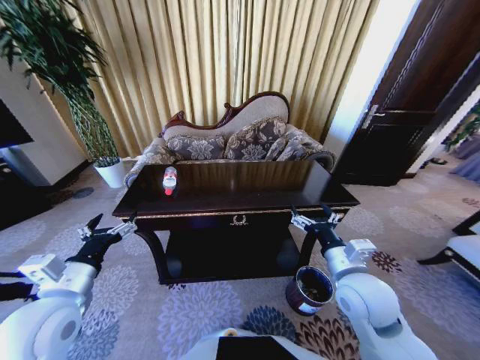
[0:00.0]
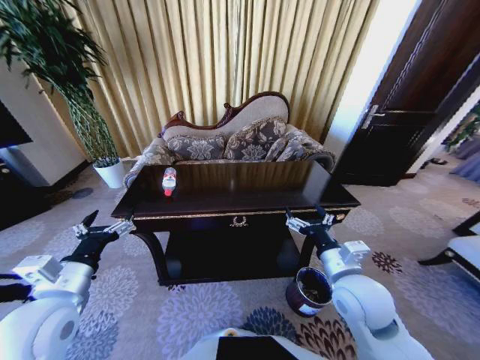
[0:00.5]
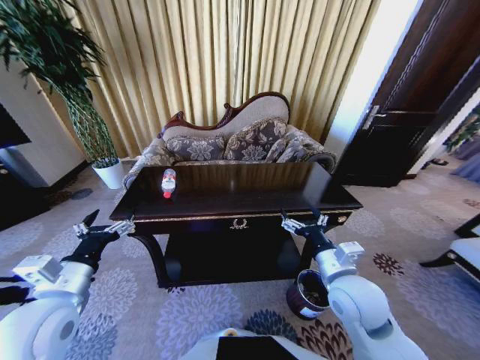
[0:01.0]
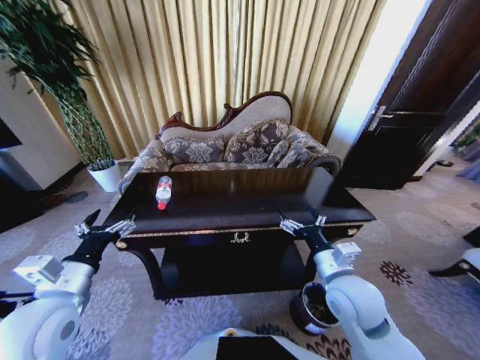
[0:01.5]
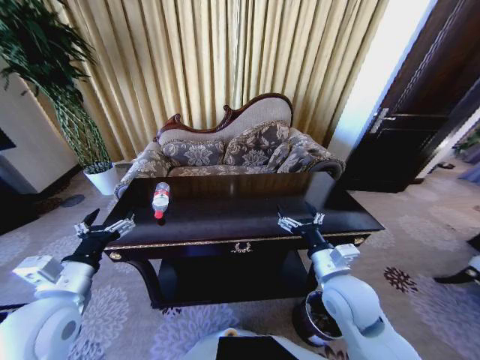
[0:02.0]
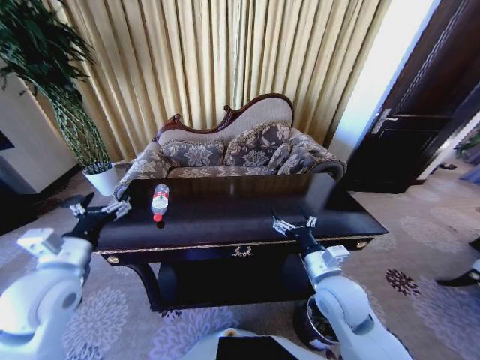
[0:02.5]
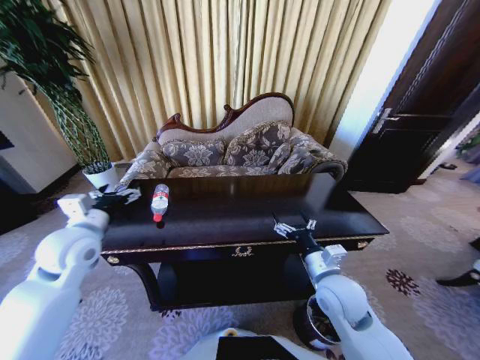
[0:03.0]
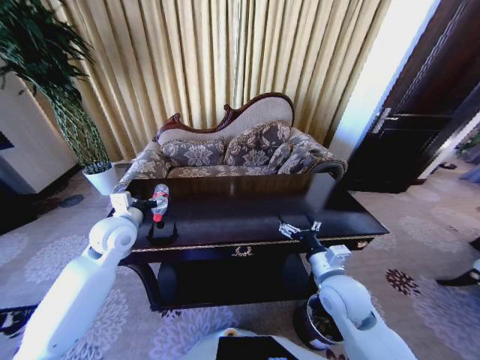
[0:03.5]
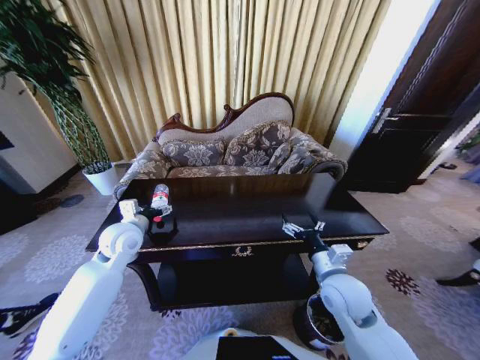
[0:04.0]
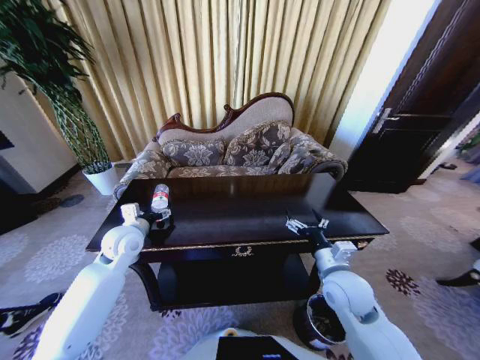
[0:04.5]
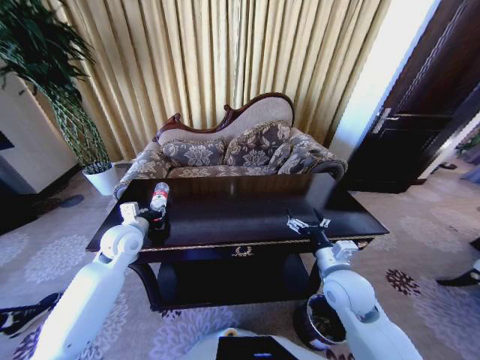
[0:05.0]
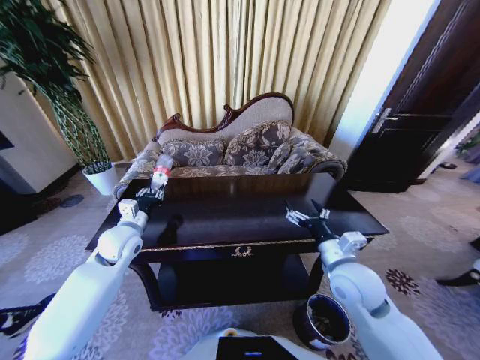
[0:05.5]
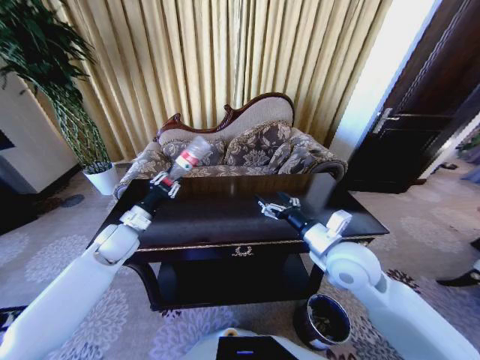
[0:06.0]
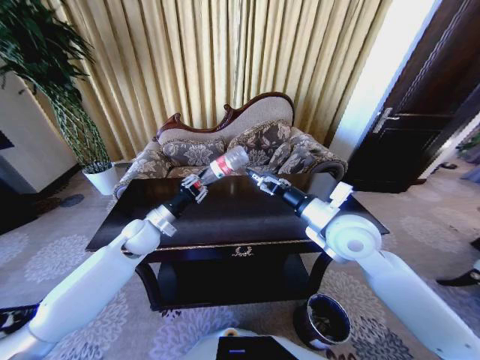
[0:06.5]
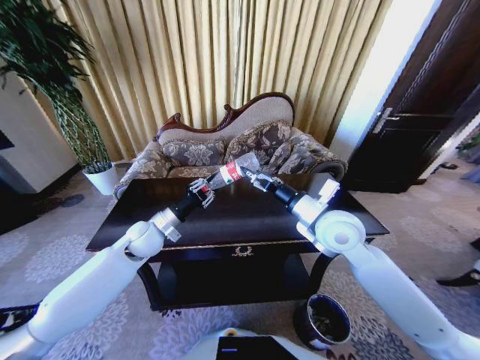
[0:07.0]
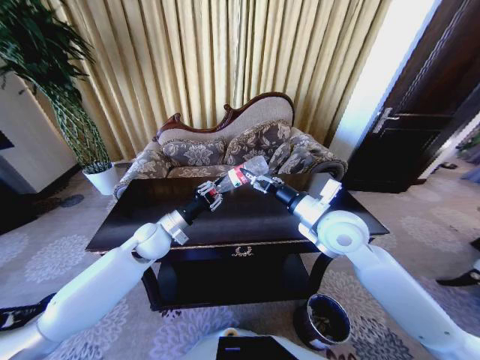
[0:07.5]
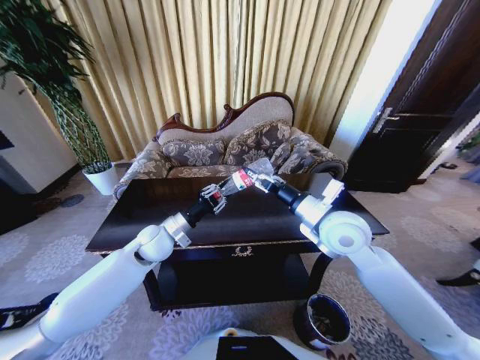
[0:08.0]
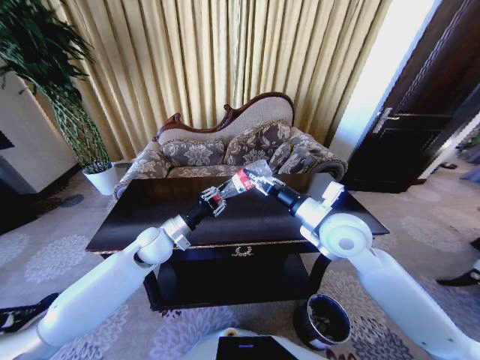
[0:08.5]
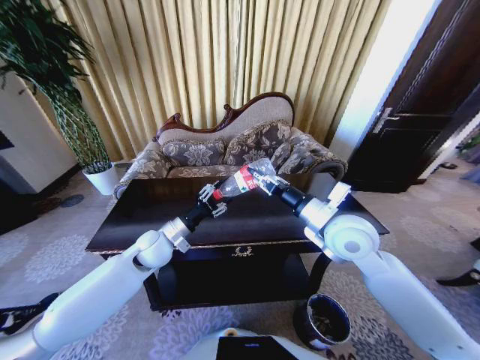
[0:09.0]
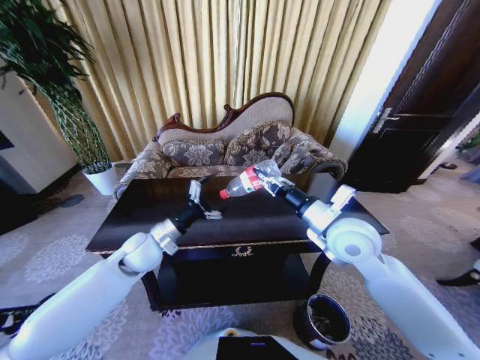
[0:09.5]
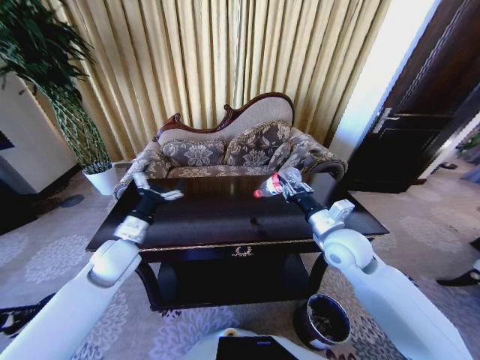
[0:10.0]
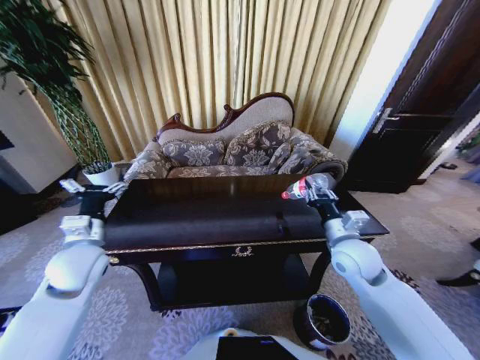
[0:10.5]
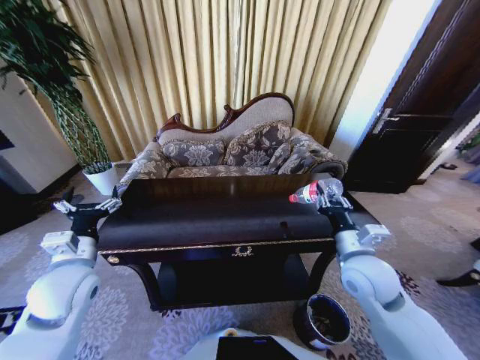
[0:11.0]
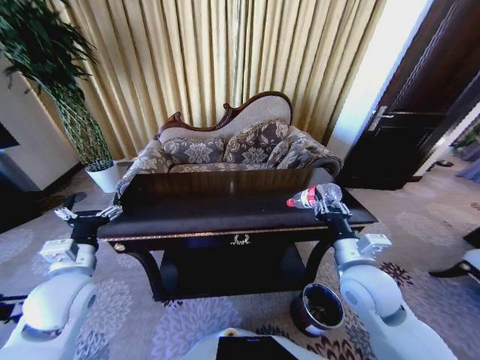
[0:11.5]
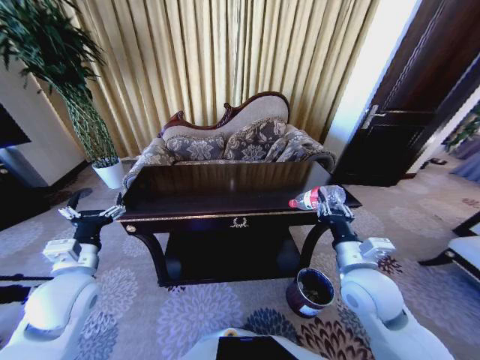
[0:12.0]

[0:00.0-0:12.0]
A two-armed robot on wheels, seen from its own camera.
Task of the whole recording: Move to the front of the table and place the trash on the table into the trash bin.
0:02.0 to 0:04.0: The left gripper is displaced forward by roughly 20 cm.
0:04.0 to 0:06.0: The left gripper closes up; the right gripper shifts roughly 10 cm upward.
0:06.0 to 0:08.0: The left gripper travels to the right by approximately 10 cm, while the right gripper is displaced forward by about 5 cm.
0:08.0 to 0:10.0: The right gripper travels downward by about 5 cm, and closes up; the left gripper shifts approximately 10 cm to the left and backward, and opens.
0:10.0 to 0:12.0: Both grippers travel together backward, some 10 cm.

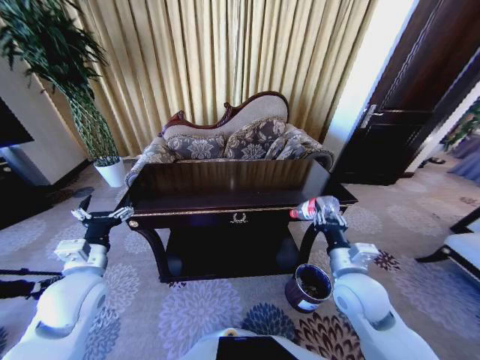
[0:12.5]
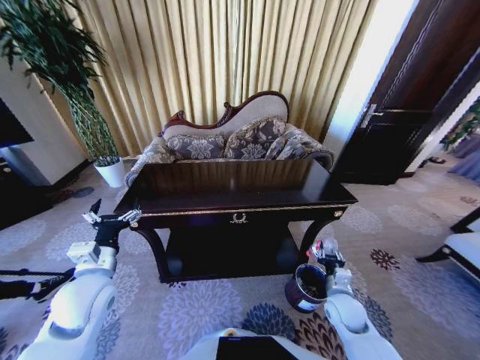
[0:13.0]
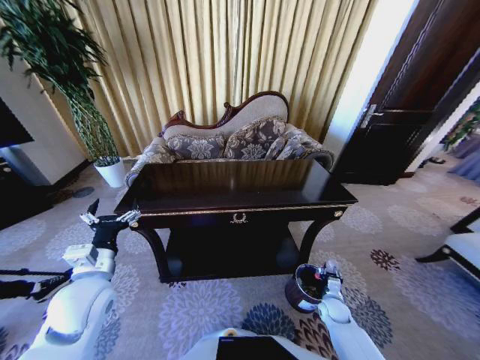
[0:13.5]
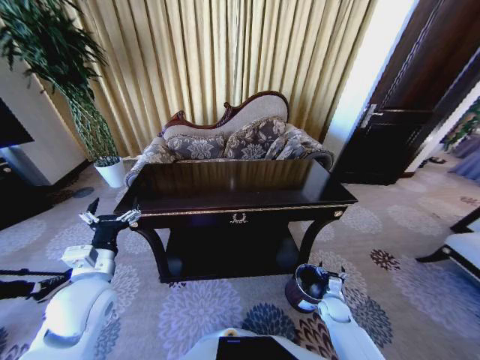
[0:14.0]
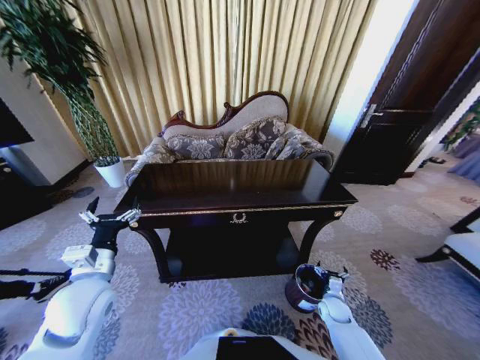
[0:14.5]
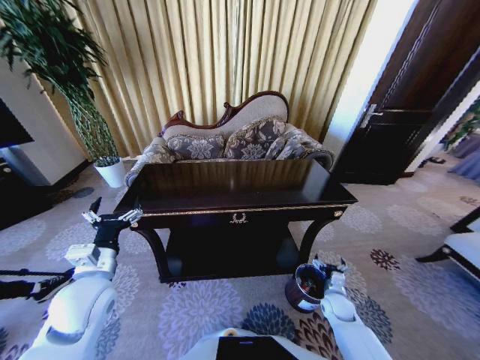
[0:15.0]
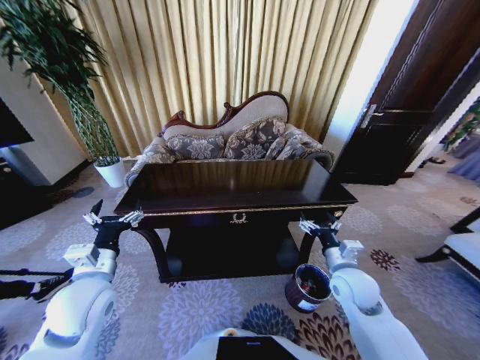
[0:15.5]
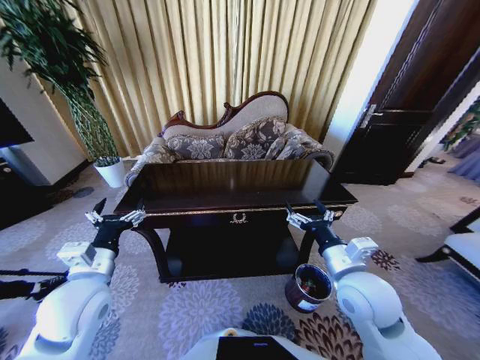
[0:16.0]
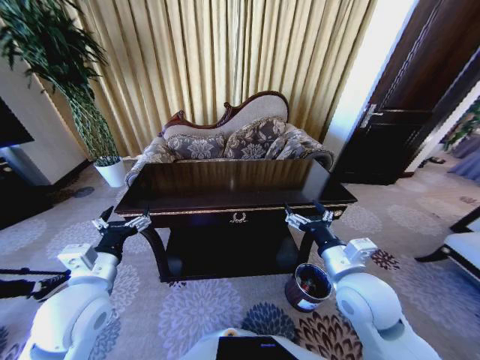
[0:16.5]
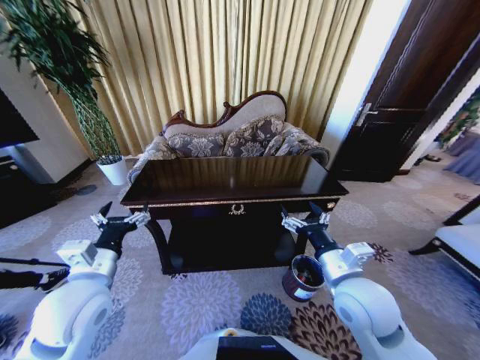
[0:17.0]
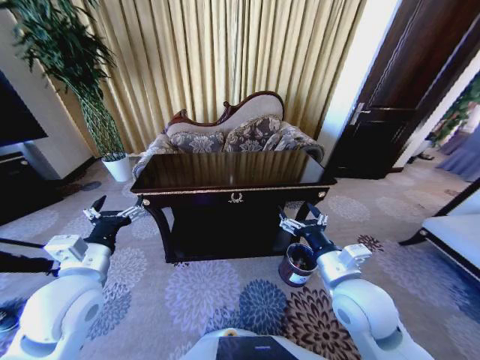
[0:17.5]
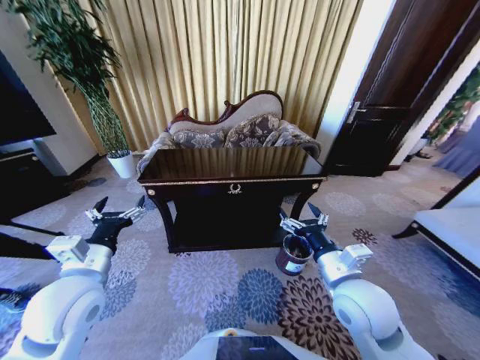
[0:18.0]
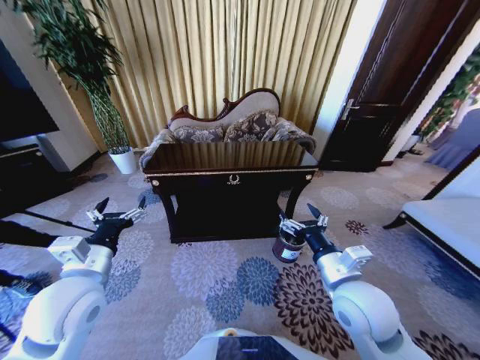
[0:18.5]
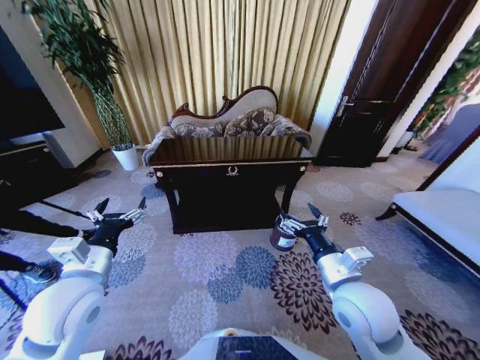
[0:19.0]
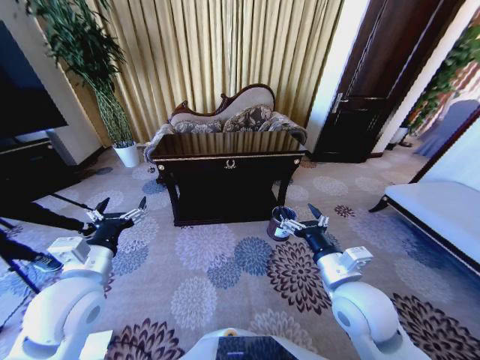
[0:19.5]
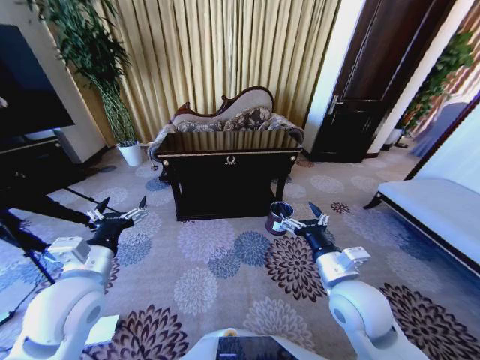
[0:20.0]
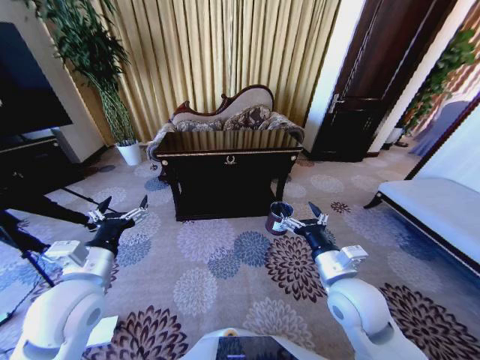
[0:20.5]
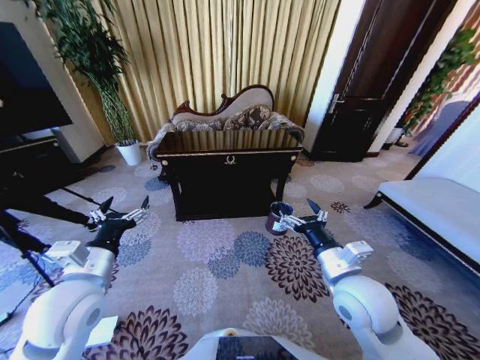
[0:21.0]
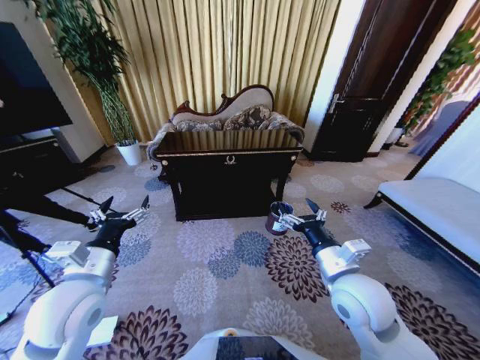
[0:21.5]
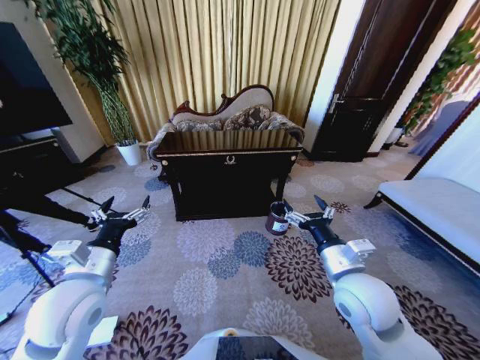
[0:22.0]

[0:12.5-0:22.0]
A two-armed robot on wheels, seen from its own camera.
Task of the whole recording: Move to the front of the table and place the trash on the table into the trash bin.
0:12.5 to 0:14.5: The right gripper heads downward, covering about 30 cm, and opens up.
0:14.5 to 0:16.5: The right gripper is displaced upward by some 35 cm.
0:20.0 to 0:22.0: The grippers make only small movements.

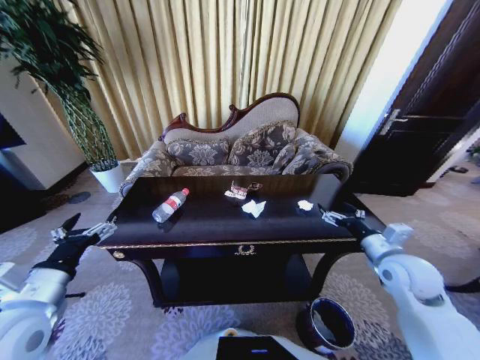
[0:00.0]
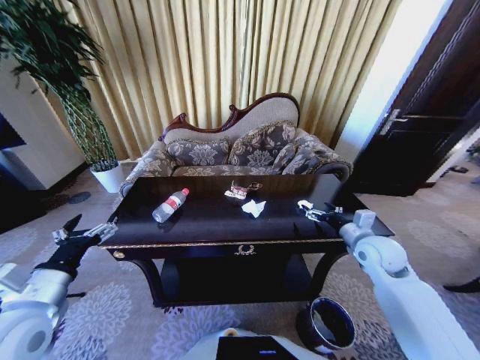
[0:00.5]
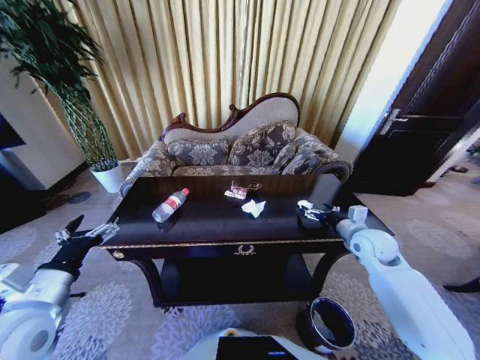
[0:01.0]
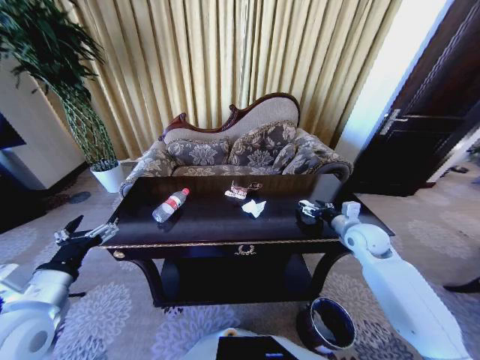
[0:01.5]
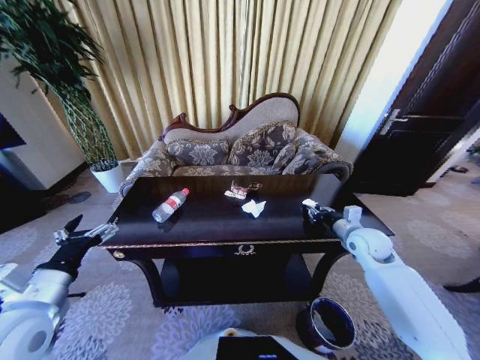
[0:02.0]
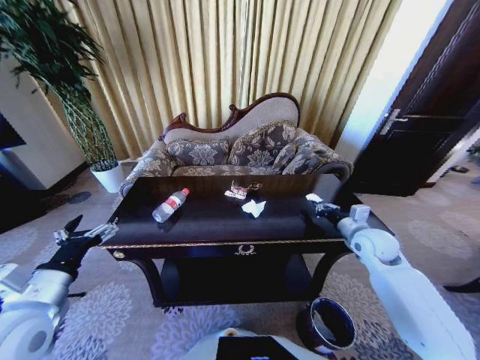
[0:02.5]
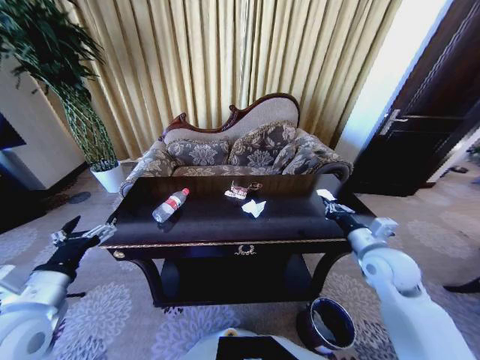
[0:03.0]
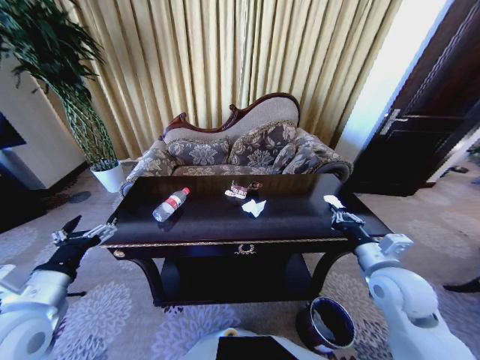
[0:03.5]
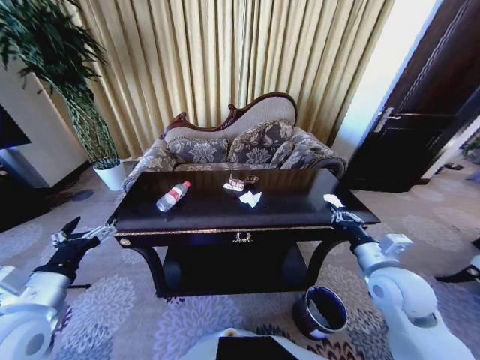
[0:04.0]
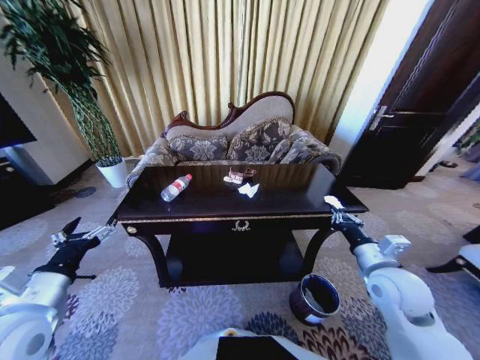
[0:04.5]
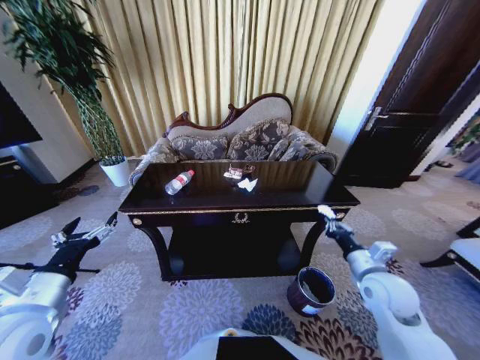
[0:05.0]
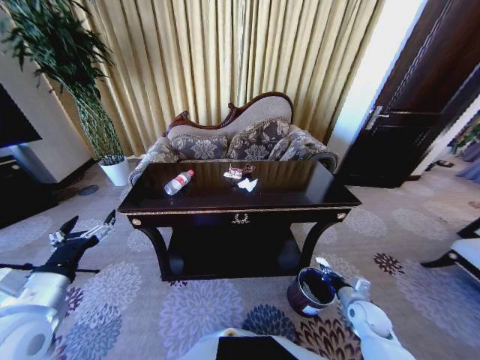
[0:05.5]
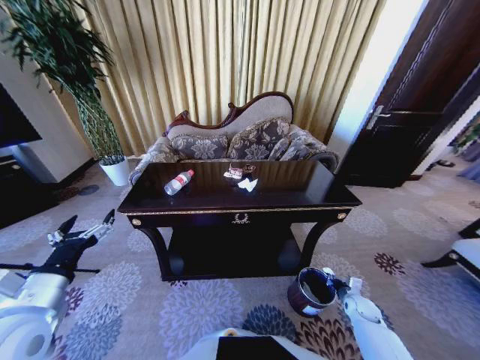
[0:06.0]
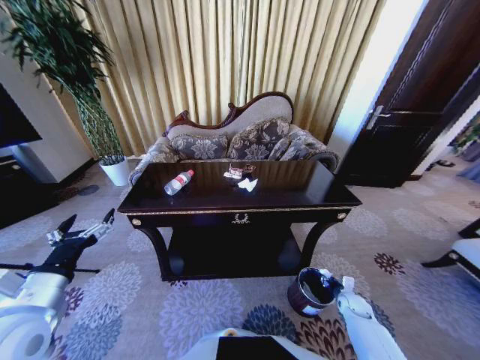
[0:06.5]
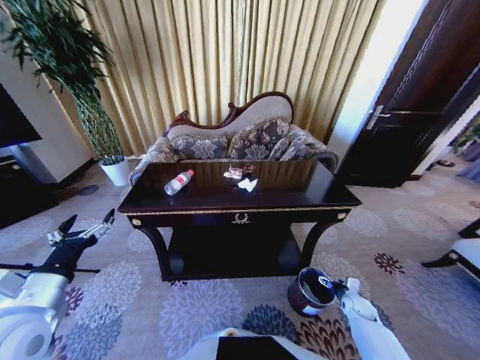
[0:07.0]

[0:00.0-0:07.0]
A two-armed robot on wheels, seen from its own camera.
Task of the whole recording: Move to the front of the table and place the trash on the table into the trash bin.
0:00.0 to 0:02.0: The right gripper goes roughly 10 cm forward, and closes its fingers.
0:02.0 to 0:03.5: The right gripper travels backward by about 15 cm.
0:05.0 to 0:07.0: The right gripper is displaced downward by some 30 cm, and opens its fingers.
